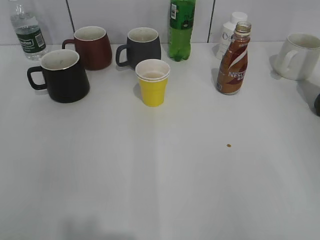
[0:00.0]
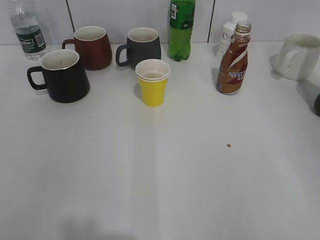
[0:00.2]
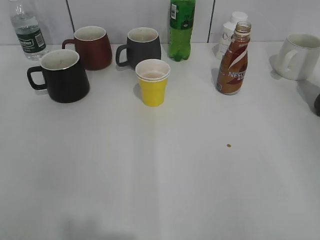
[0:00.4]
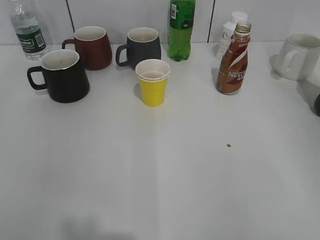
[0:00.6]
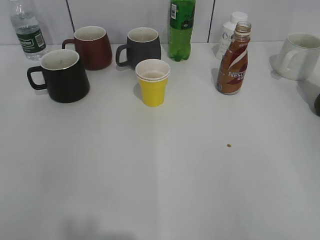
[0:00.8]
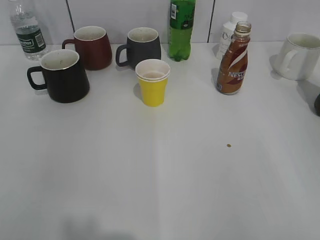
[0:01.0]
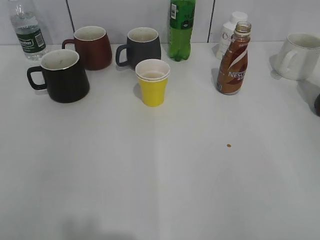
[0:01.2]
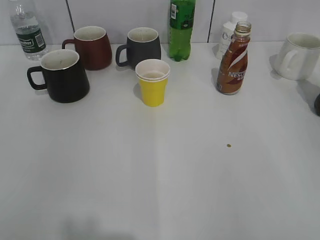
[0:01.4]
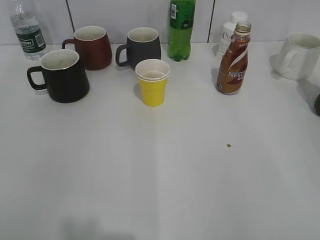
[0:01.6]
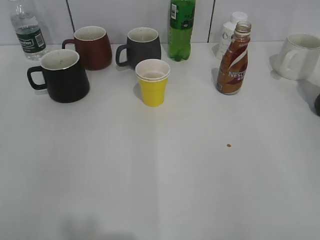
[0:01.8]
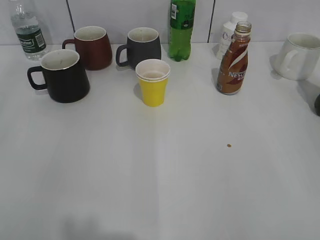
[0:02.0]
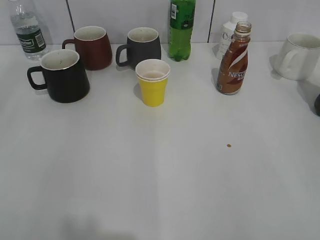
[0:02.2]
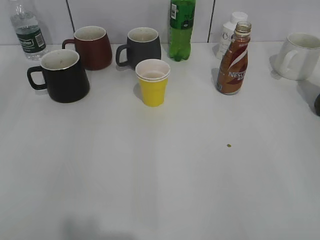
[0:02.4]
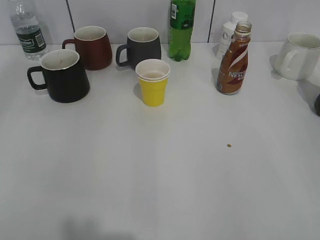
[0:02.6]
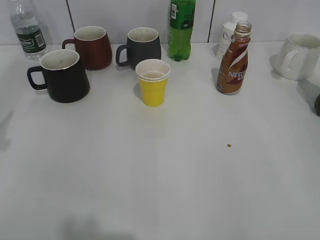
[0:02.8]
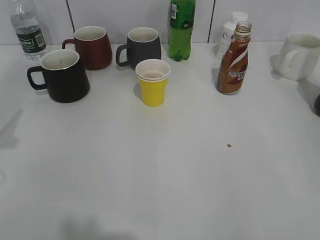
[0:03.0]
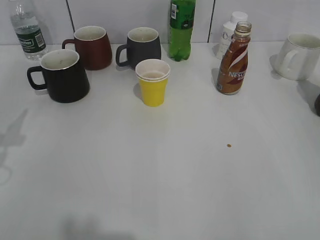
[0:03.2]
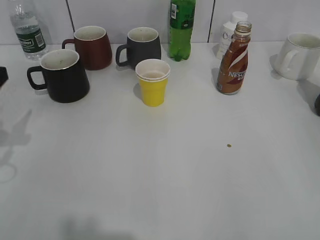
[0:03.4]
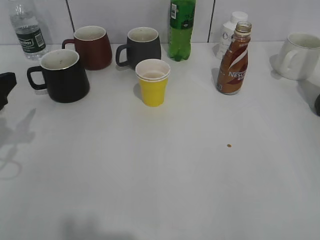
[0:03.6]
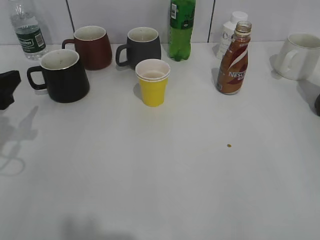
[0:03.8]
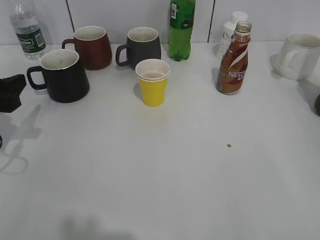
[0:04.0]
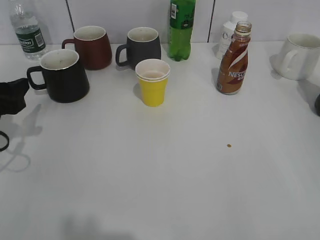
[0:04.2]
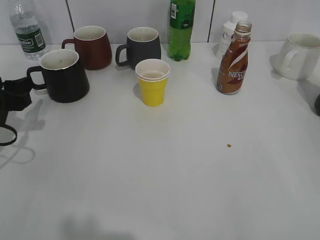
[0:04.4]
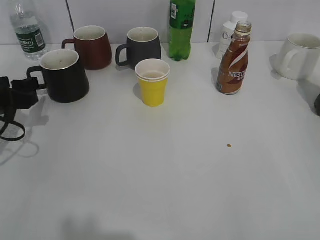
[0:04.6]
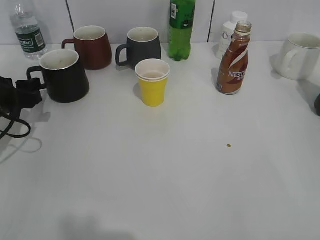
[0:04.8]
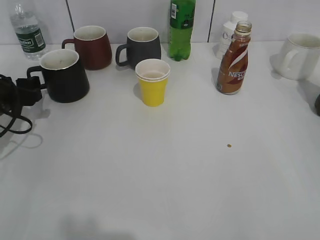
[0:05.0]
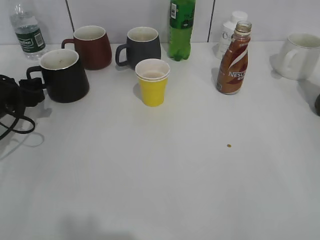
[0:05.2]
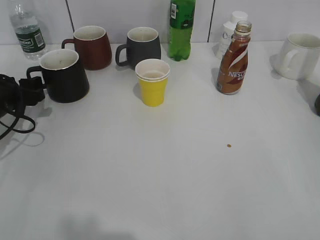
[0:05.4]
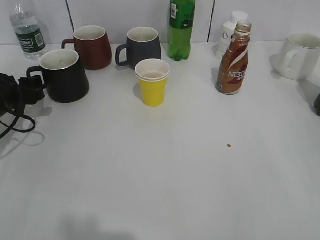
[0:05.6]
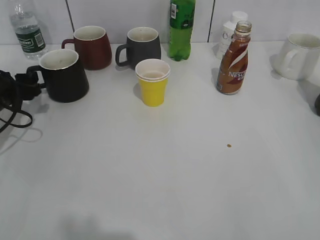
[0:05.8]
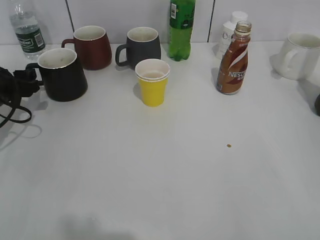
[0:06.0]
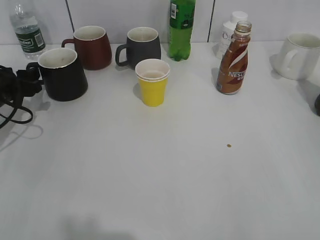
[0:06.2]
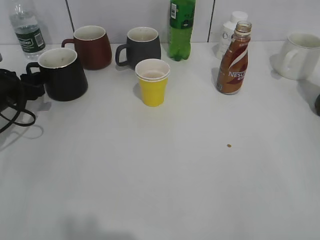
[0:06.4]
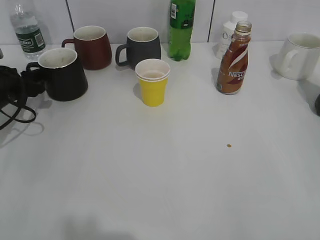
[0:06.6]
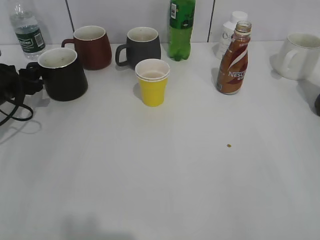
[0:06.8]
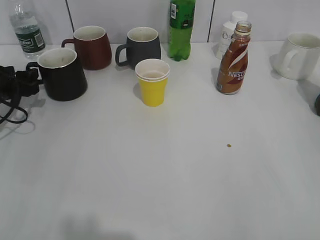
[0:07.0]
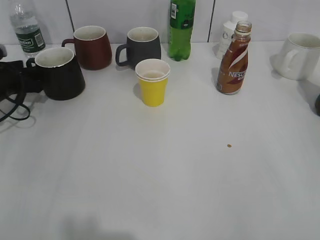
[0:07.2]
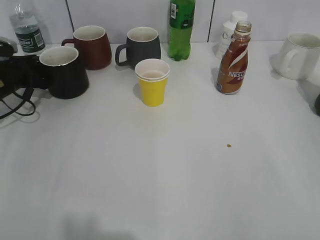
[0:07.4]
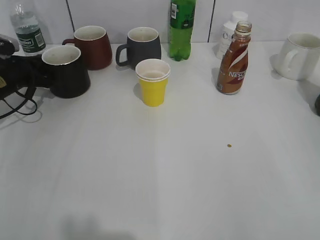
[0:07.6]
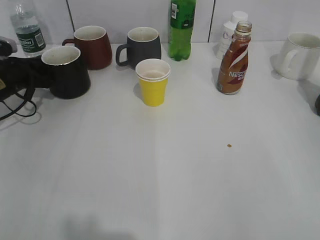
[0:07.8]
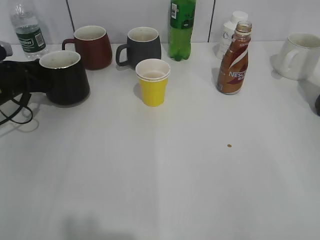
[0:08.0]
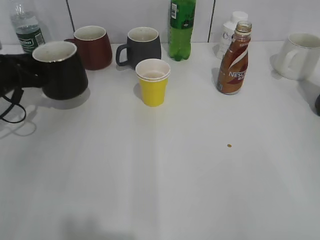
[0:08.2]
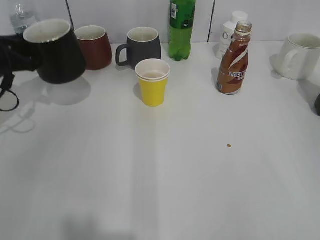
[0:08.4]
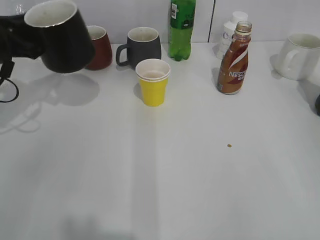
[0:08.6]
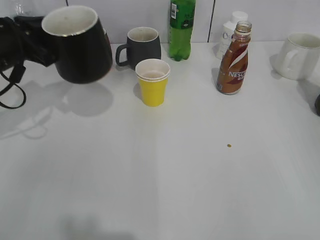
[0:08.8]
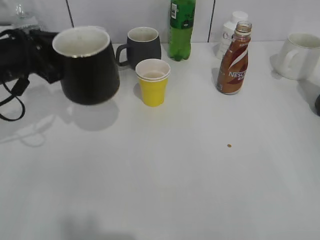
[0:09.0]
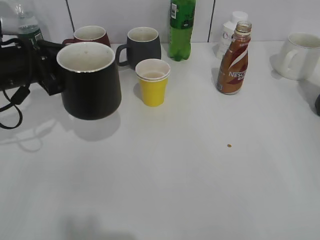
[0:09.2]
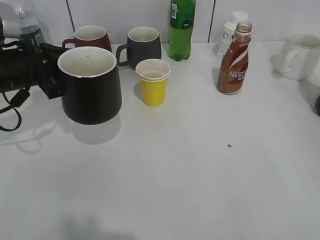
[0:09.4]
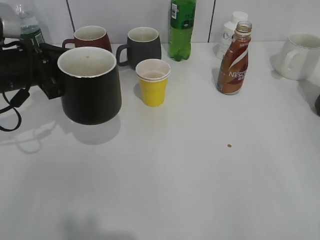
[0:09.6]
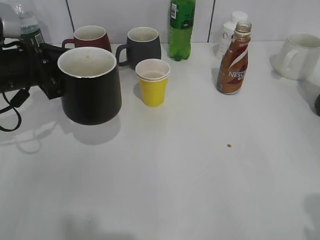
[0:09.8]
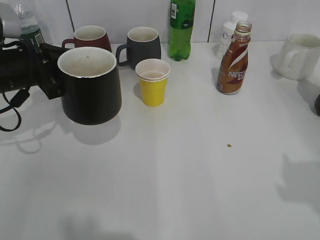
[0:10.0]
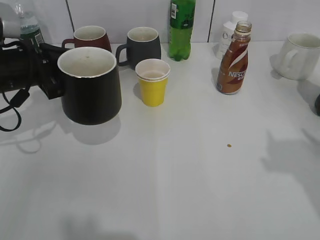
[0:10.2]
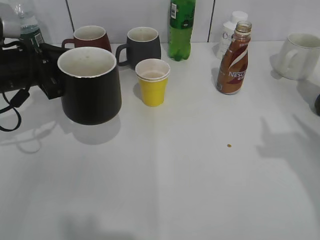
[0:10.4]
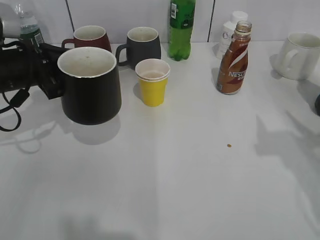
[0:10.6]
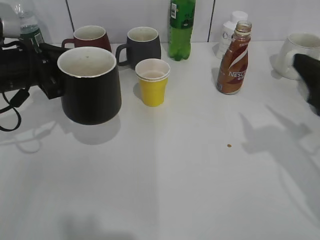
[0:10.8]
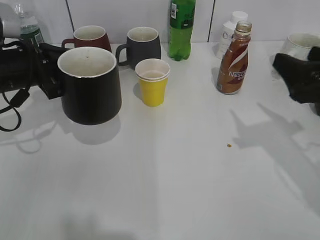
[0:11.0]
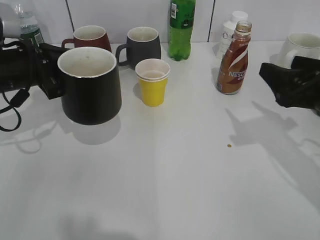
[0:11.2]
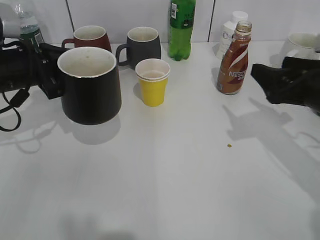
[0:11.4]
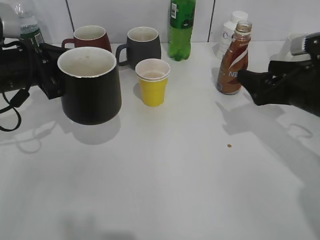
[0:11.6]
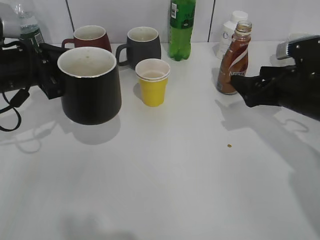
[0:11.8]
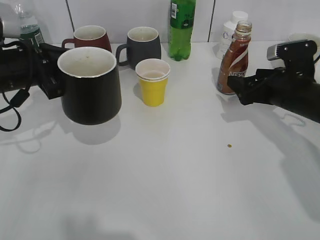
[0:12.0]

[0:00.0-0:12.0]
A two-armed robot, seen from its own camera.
Step, 0:01.4 to 0:07.6: Grasp the black cup with left gripper.
Step, 0:07.8 to 0:09.4: Lift the black cup with left gripper.
0:03.0 to 0:04.4: The left gripper is displaced downward and forward by about 15 cm.
0:04.4 to 0:06.0: The left gripper shifts approximately 5 cm forward.
0:06.0 to 0:07.6: The left gripper goes some 5 cm forward, and closes its fingers.
0:07.6 to 0:09.0: The left gripper moves upward, backward and to the right, roughly 15 cm.
0:09.0 to 0:10.4: The right gripper goes approximately 15 cm forward.
0:10.4 to 0:12.0: The right gripper shifts about 25 cm forward and downward, and opens its fingers.

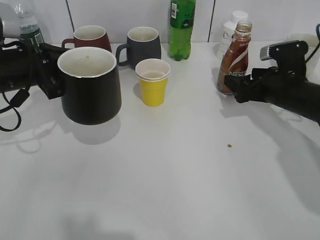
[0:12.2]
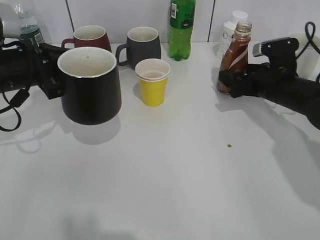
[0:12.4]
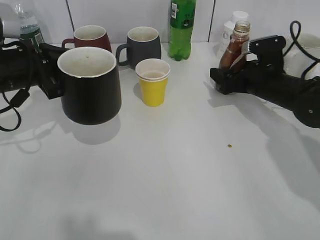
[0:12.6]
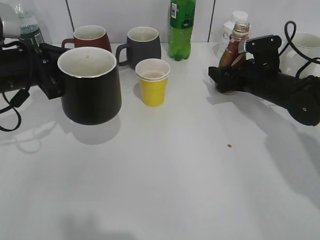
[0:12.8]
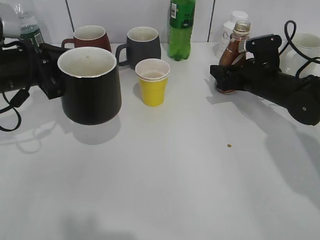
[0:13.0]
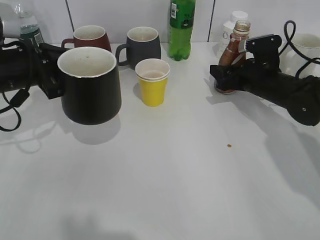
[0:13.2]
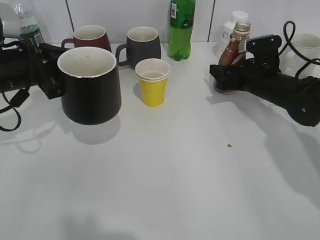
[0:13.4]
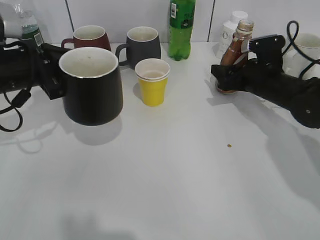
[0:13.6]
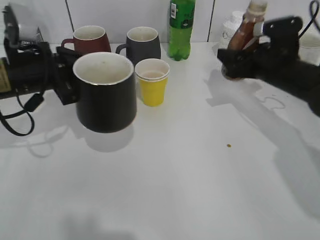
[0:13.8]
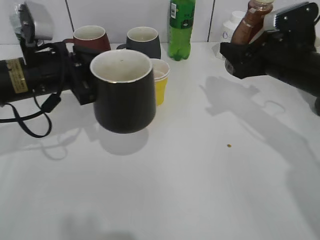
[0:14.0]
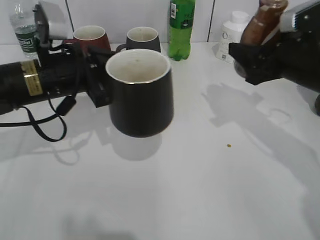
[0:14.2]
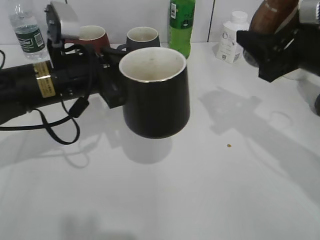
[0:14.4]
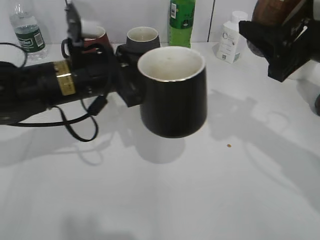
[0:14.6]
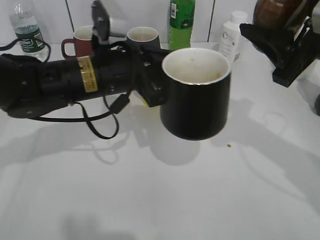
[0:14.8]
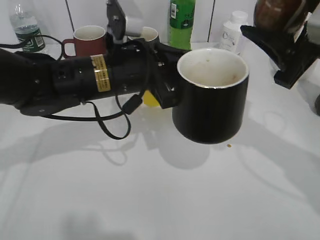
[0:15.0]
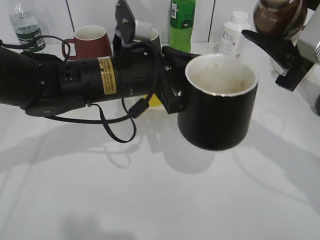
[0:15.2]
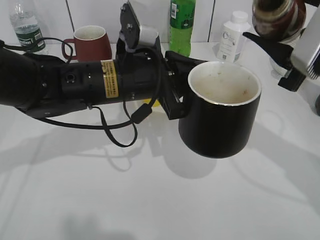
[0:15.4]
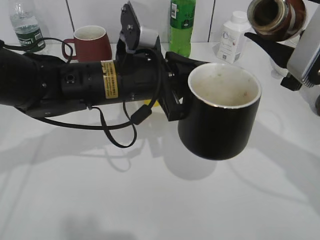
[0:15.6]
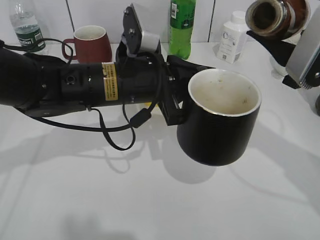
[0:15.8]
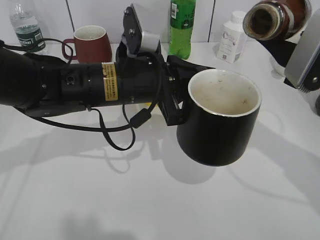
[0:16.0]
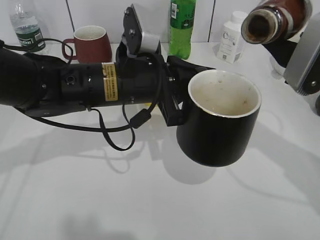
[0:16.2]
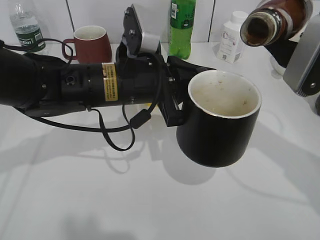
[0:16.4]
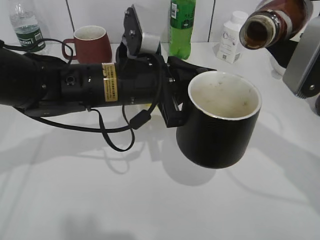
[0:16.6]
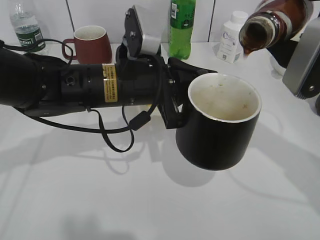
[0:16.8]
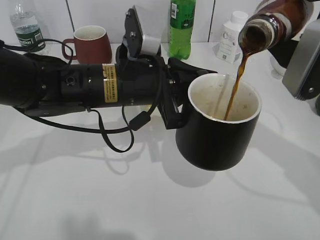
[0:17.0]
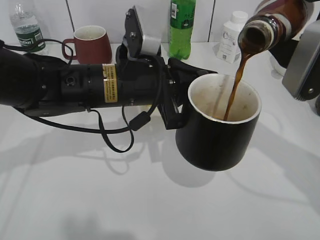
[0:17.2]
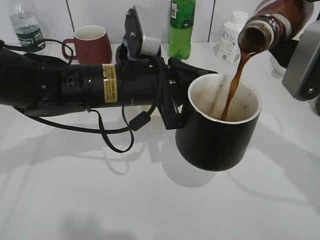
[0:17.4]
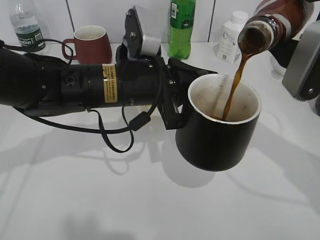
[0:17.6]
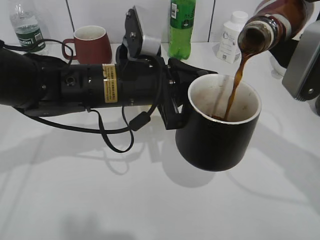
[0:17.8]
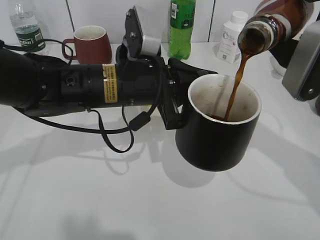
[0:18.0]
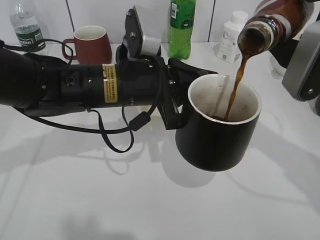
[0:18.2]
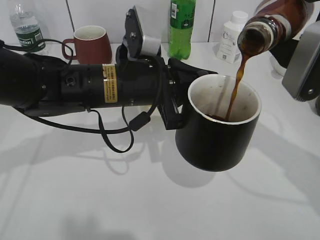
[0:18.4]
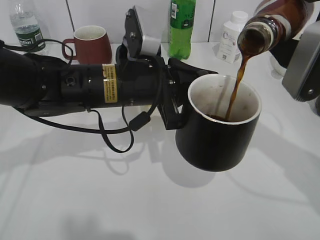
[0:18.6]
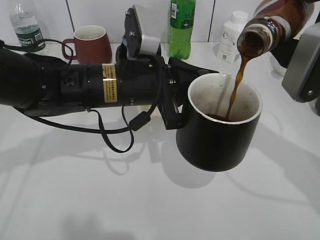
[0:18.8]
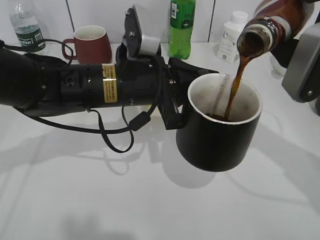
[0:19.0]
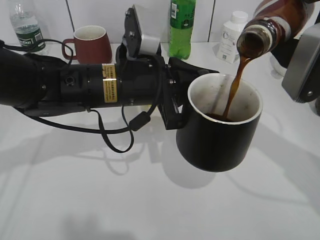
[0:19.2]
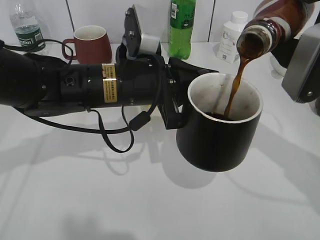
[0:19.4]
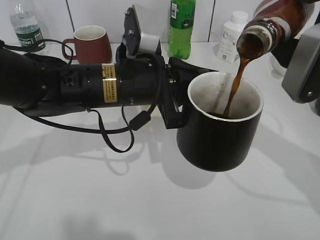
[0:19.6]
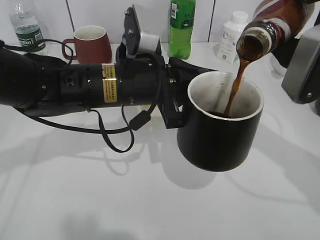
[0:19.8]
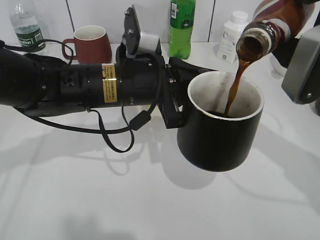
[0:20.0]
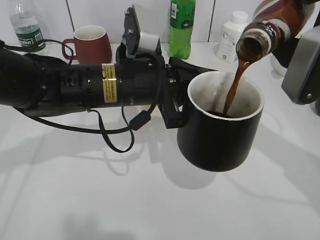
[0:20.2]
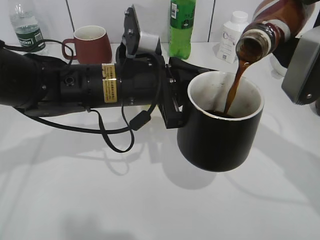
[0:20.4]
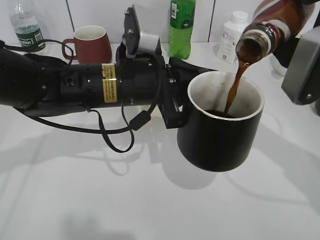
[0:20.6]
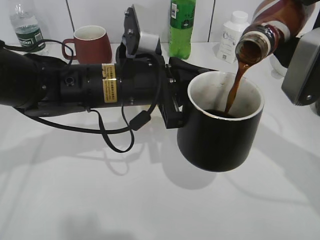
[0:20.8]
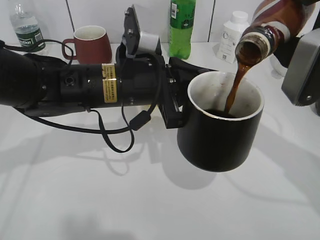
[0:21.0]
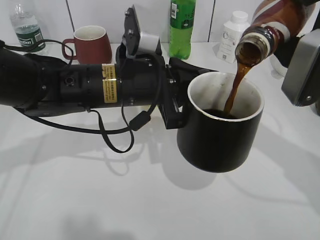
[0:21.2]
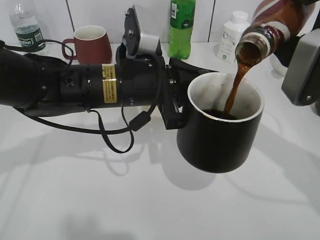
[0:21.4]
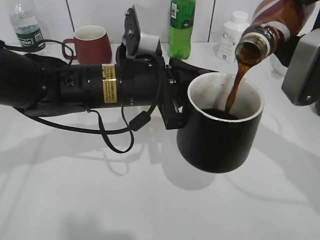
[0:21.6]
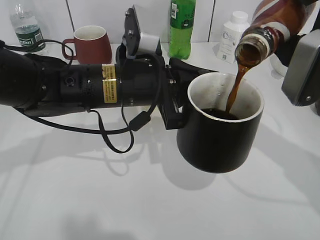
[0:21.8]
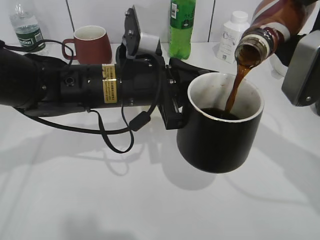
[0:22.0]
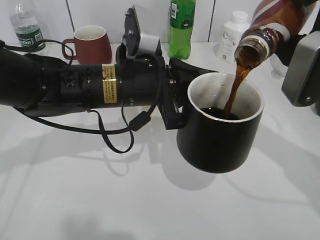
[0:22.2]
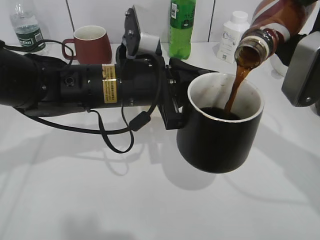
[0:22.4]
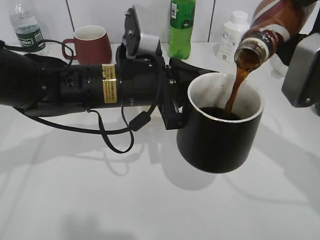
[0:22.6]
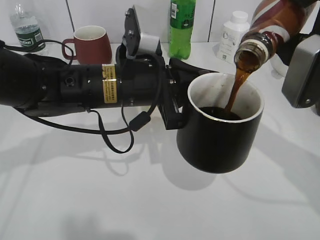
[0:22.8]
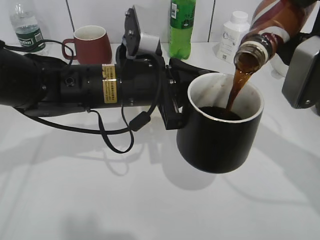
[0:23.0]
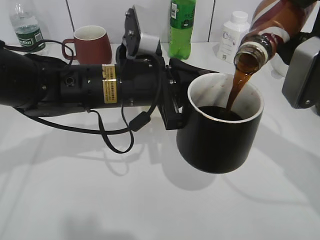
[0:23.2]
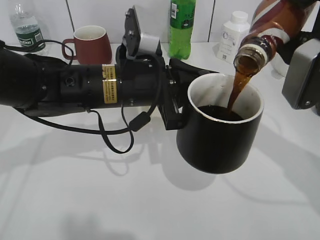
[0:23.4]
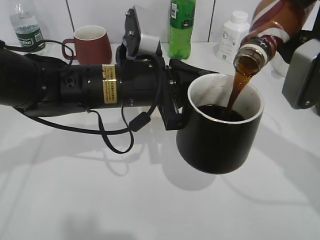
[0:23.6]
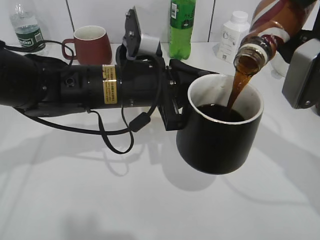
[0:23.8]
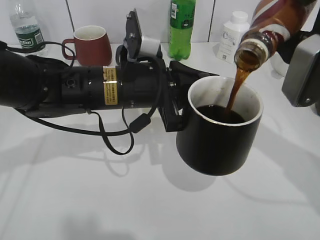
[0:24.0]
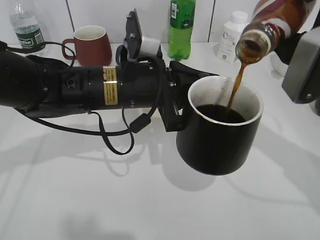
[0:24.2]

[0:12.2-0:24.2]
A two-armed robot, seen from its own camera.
0:12.2 to 0:13.8: The right gripper closes.
0:13.8 to 0:15.2: The left gripper travels to the right by roughly 15 cm. The right gripper moves backward and upward, approximately 20 cm.
0:16.6 to 0:18.2: Both grippers stay put.
0:18.2 to 0:19.8: Both grippers stay put.
0:19.8 to 0:21.2: Both grippers stay about where they are.
0:21.2 to 0:22.6: The two grippers keep their place.
0:22.6 to 0:24.2: The grippers make only small movements.
